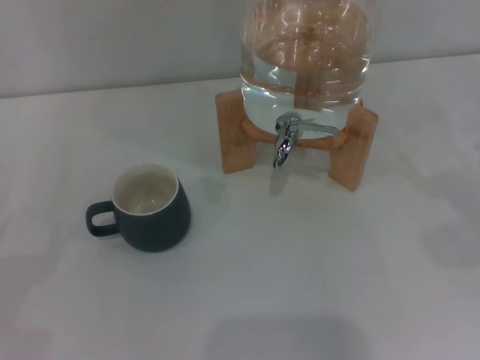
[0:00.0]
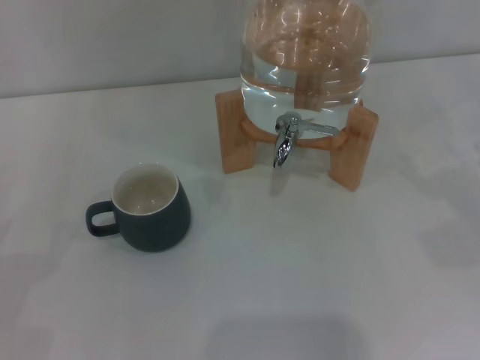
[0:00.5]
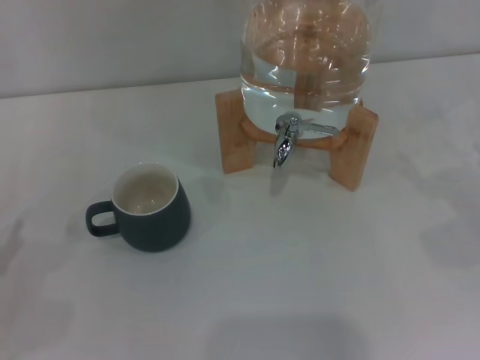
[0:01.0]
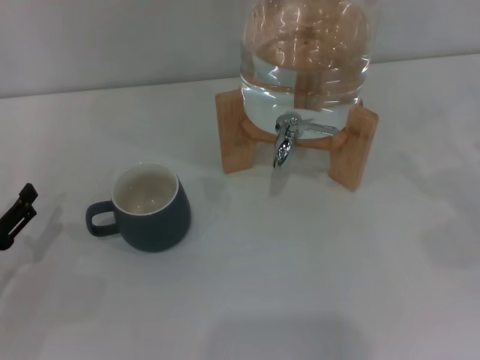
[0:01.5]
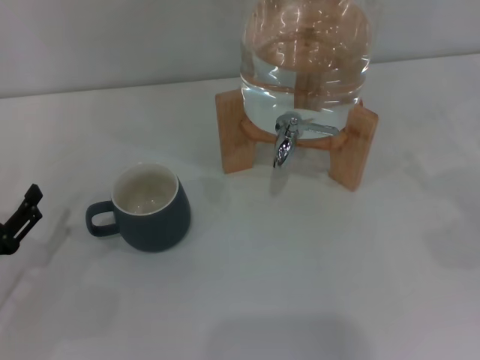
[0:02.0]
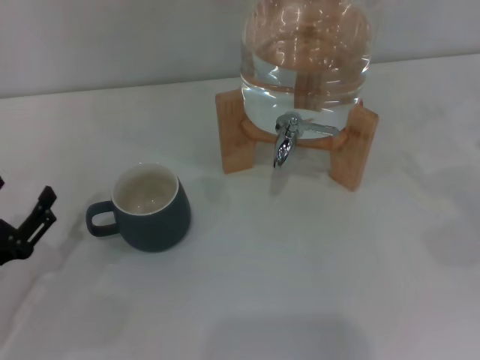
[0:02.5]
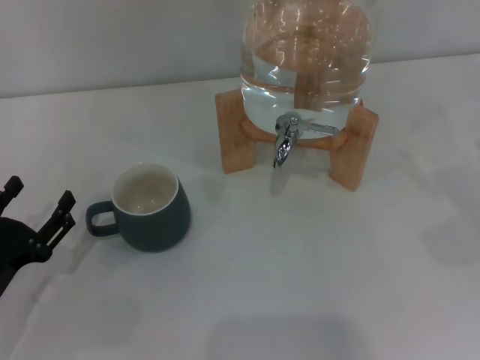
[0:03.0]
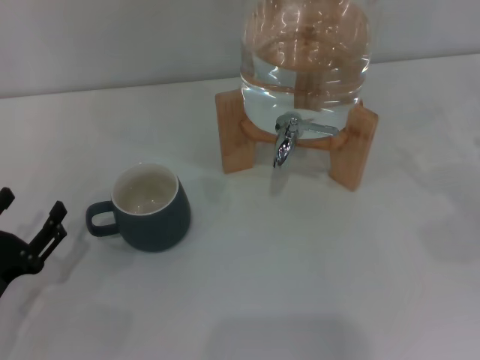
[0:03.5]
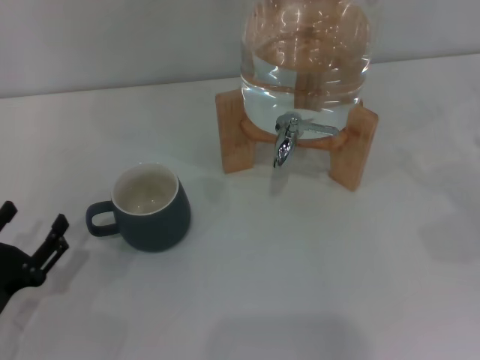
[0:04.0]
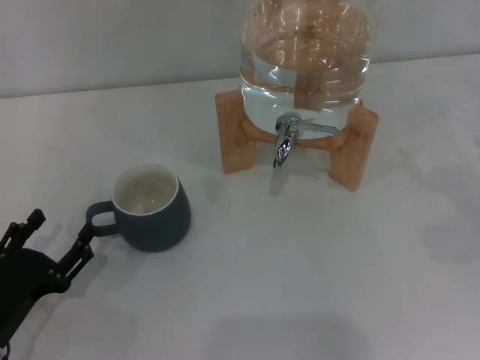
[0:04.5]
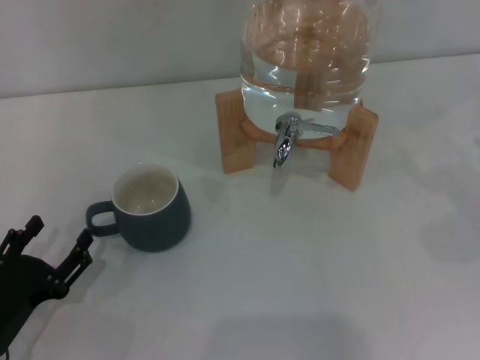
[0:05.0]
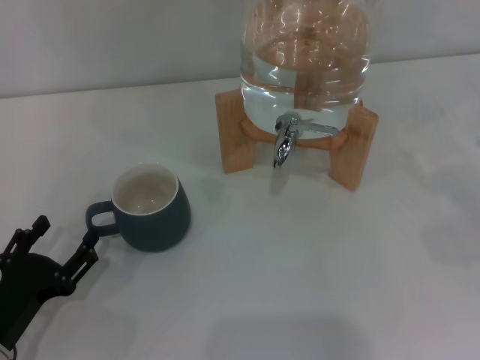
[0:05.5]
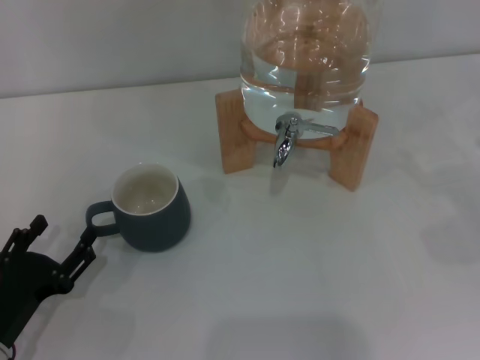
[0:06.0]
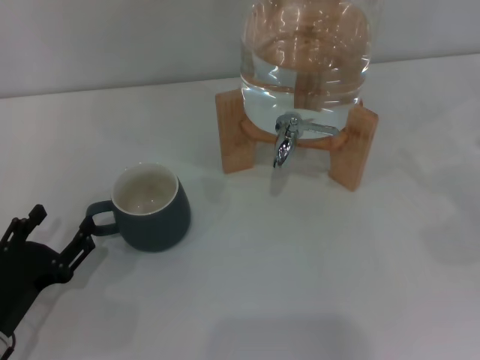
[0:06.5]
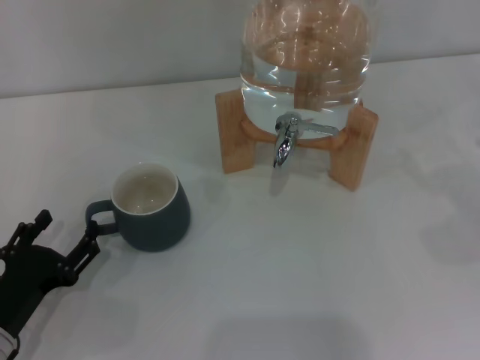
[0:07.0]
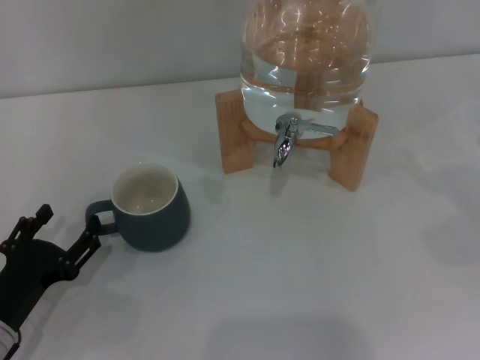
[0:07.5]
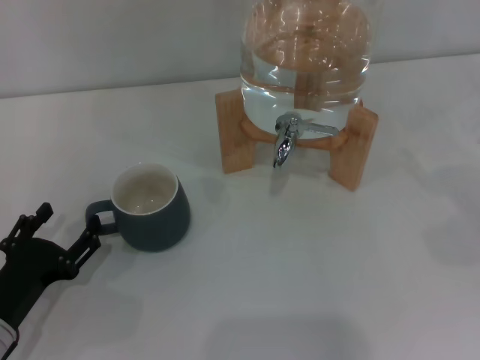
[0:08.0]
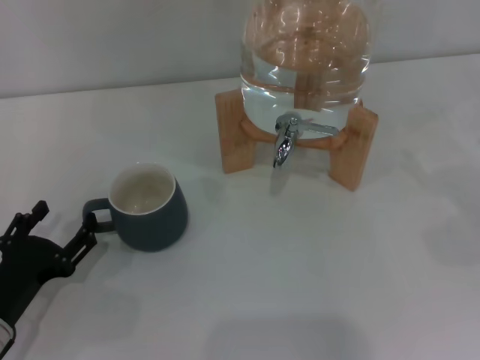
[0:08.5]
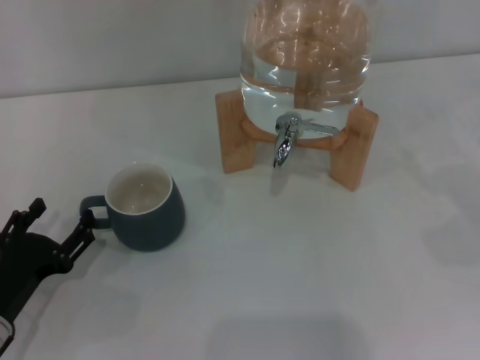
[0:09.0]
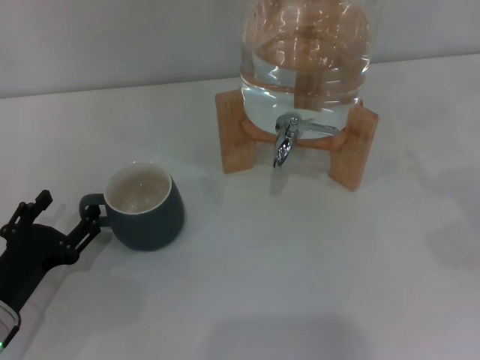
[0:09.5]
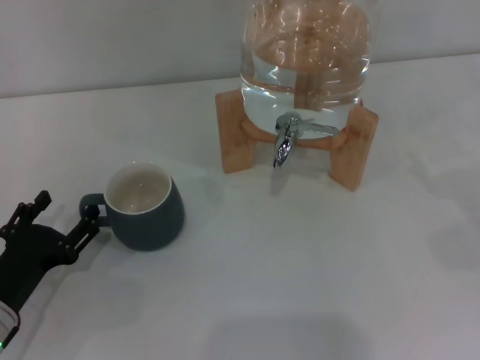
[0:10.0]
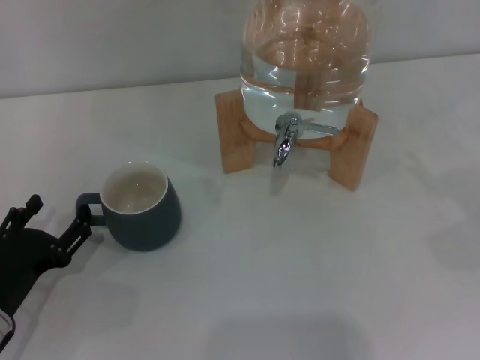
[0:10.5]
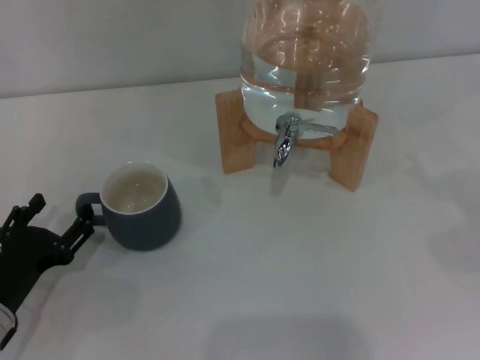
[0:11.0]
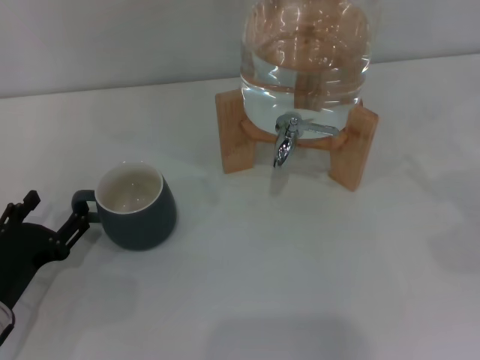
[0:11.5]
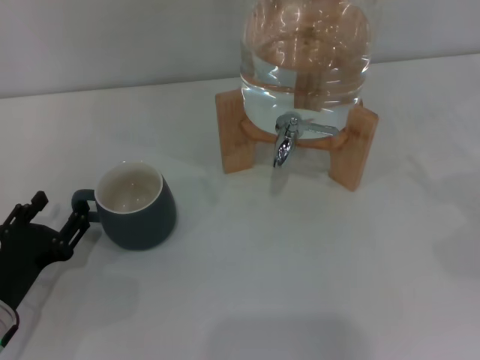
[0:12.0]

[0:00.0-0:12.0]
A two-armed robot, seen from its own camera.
Task of the whole recording: the left gripper pick up the black cup and place it horizontally under the faucet, the right gripper turn on the faucet to fill the cup, and then turn off the faucet.
0:00.0 to 0:02.0: The left gripper travels to the right by some 5 cm.
0:02.0 to 0:10.0: There are only small adjustments of the grippers.
0:10.0 to 0:12.0: Neither gripper changes place.

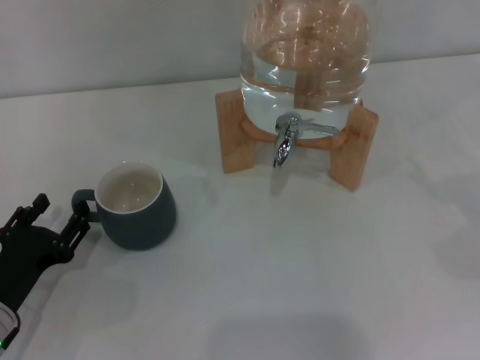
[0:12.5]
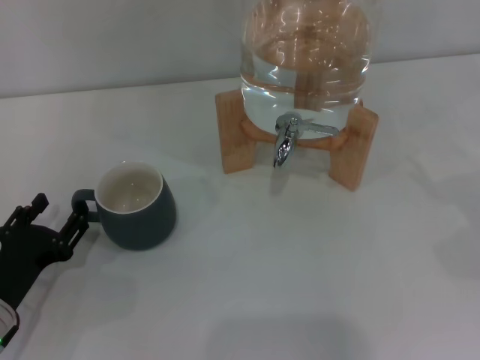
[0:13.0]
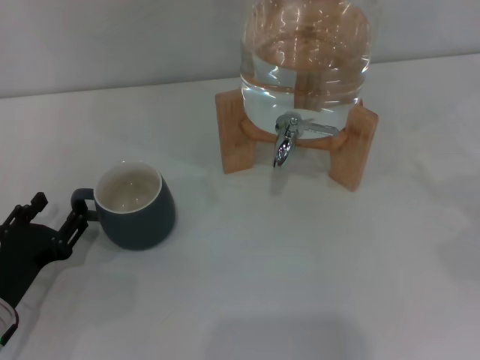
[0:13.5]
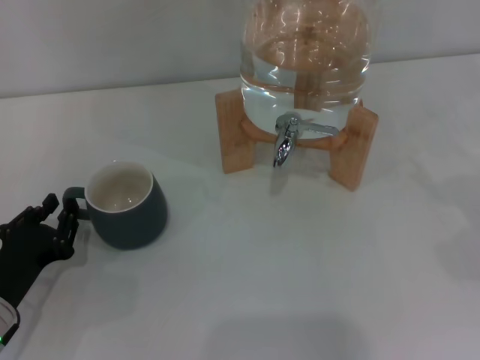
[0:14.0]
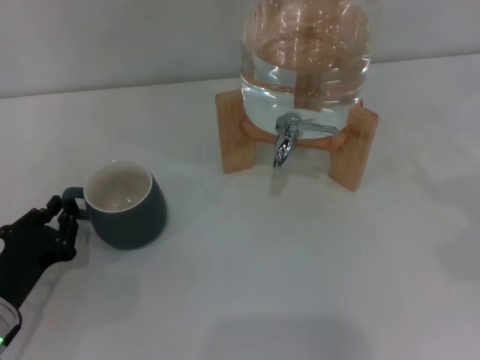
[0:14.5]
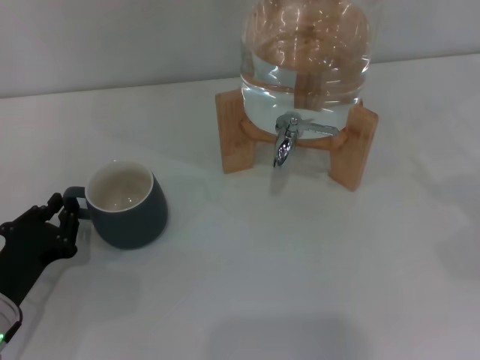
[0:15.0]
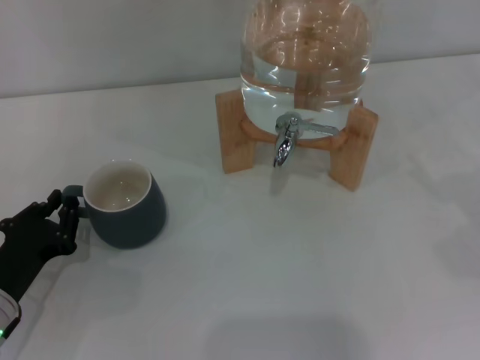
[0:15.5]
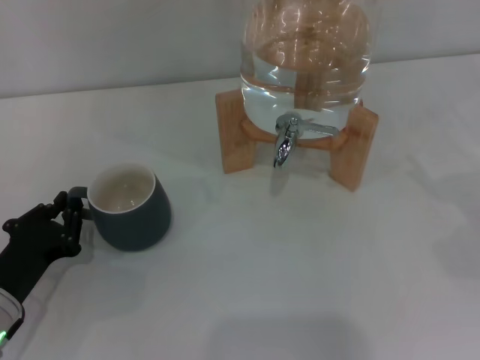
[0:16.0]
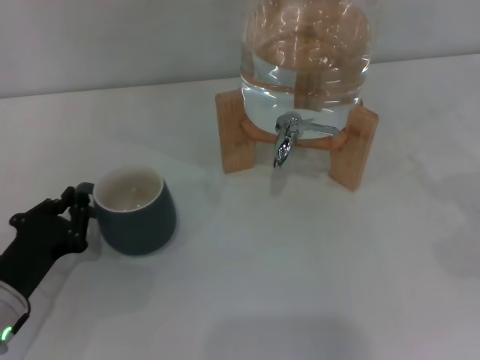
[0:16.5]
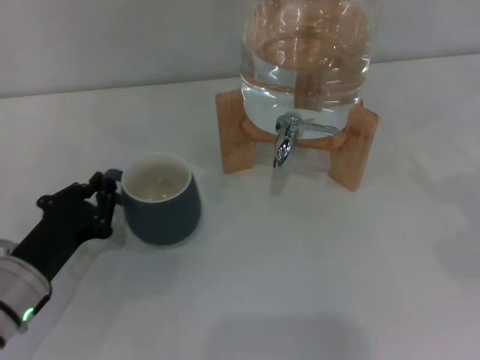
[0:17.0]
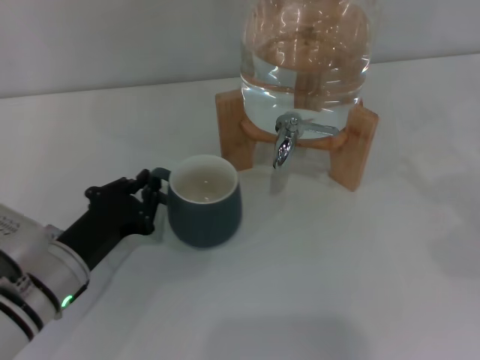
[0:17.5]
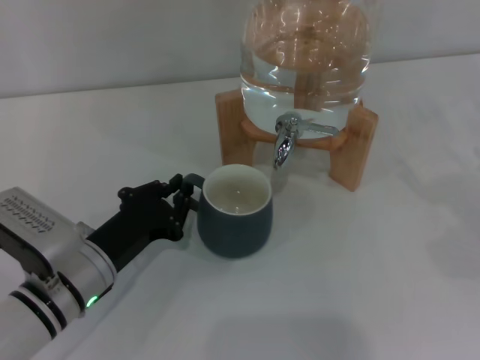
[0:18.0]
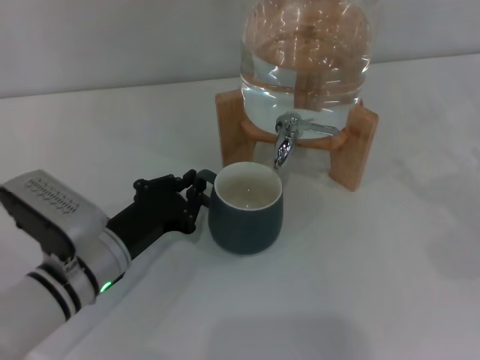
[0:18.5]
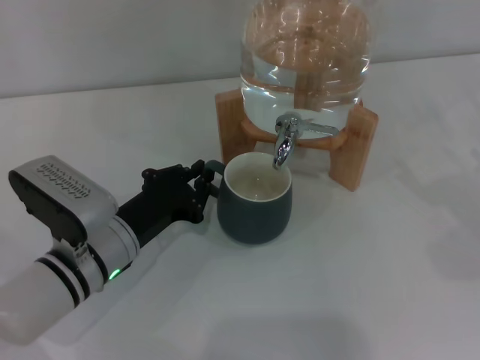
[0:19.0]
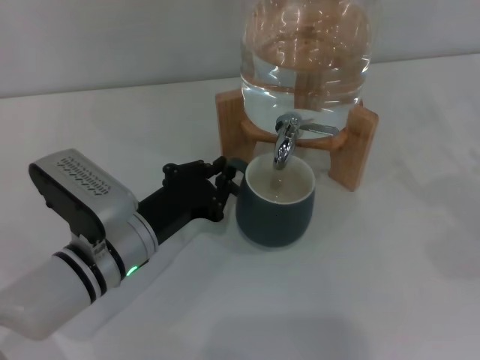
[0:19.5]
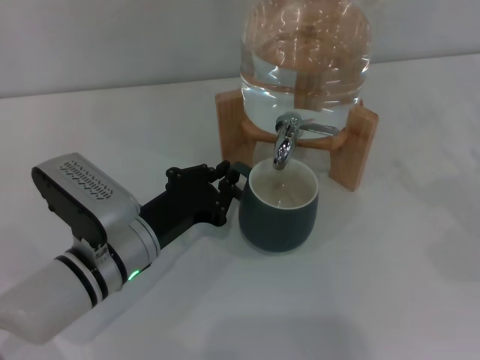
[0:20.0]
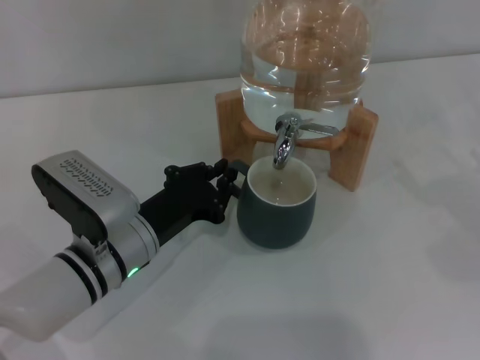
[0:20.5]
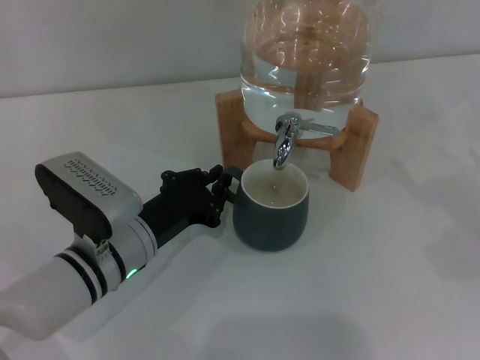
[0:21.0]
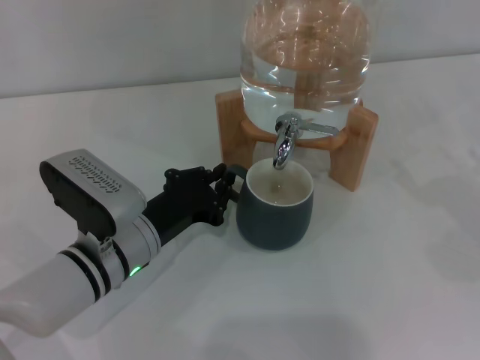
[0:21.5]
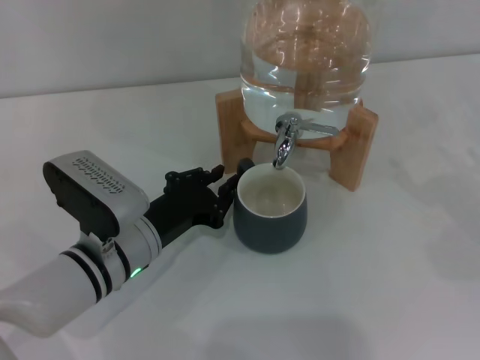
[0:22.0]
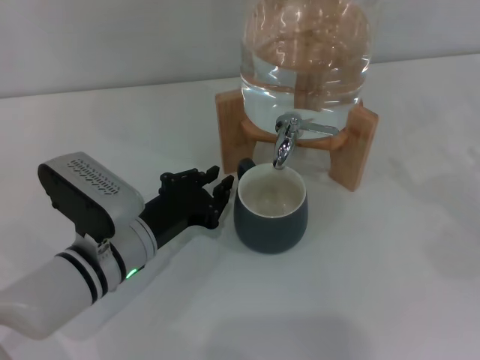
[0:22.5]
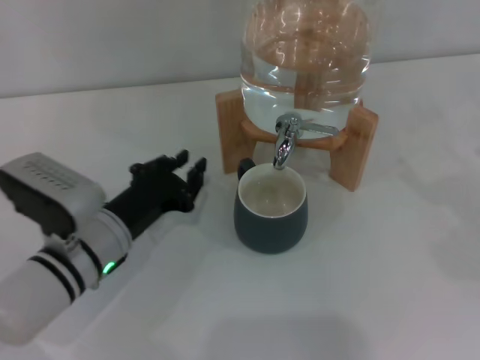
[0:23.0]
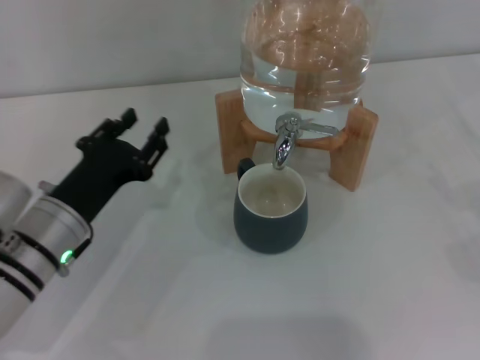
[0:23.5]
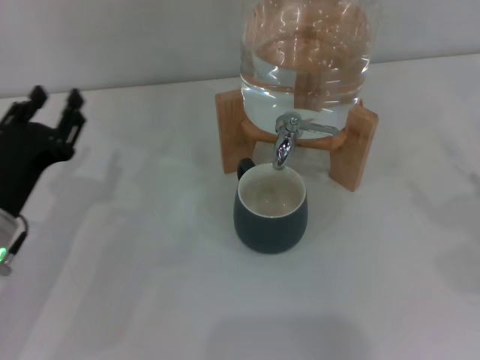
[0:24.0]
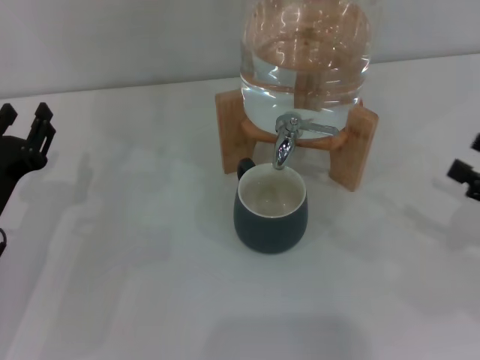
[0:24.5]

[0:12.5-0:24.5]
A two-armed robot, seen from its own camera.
Task of the whole recording: the left gripper pick up the black cup and place it horizontally under the faucet, the right gripper turn on the faucet to fill the cup, and then turn off the faucet.
Step, 0:12.5 to 0:23.0: Move the cup beneath the water dispenser nozzle with the left gripper.
0:12.5 to 0:14.5: The left gripper closes its fingers.
0:14.5 to 0:16.5: The two grippers keep their place.
0:16.5 to 0:18.5: The left gripper travels to the right by about 10 cm.
0:18.5 to 0:20.5: The grippers stay close to where they were, moving slightly.
0:20.5 to 0:22.5: Both grippers stay about where they are.
0:22.5 to 0:24.5: The left gripper is displaced to the left by approximately 10 cm, and opens. Meanwhile the right gripper ends up about 5 cm from where it was.

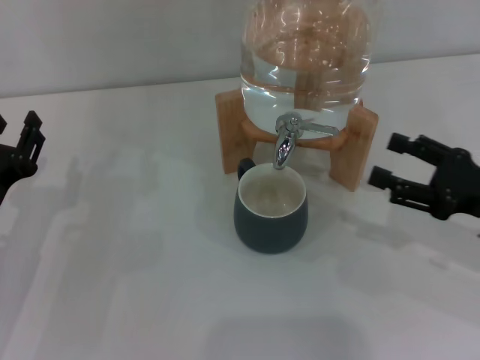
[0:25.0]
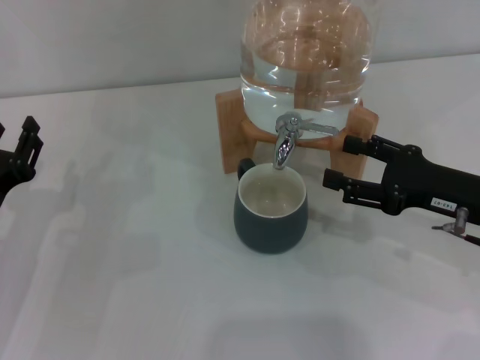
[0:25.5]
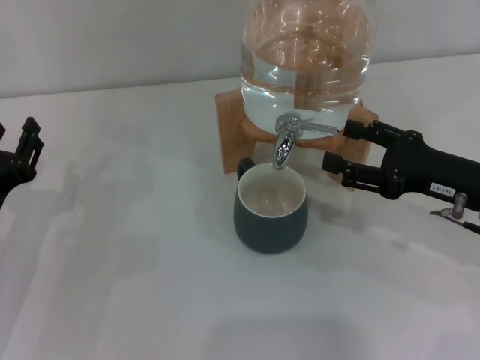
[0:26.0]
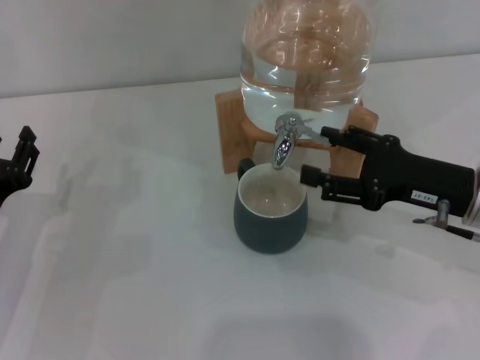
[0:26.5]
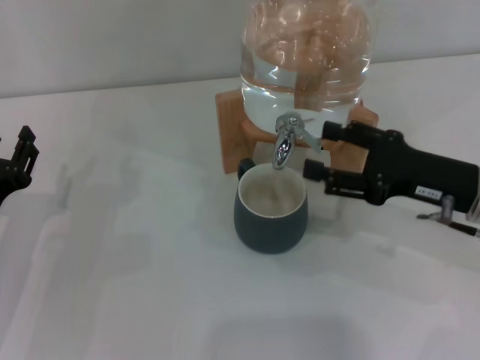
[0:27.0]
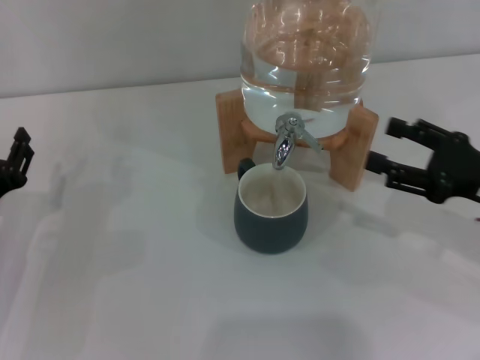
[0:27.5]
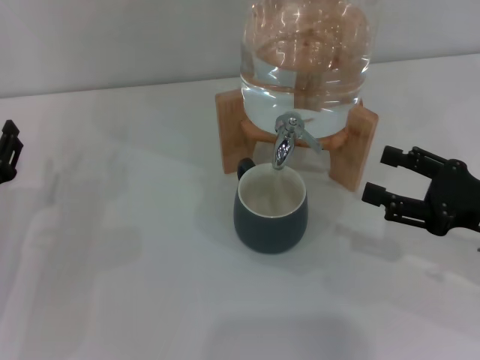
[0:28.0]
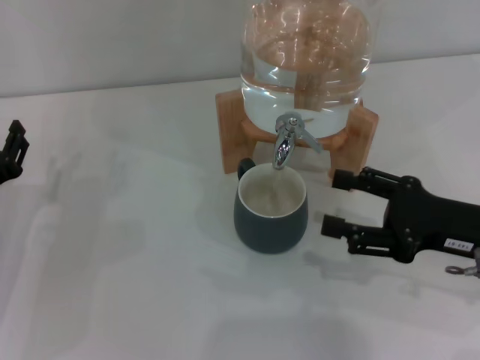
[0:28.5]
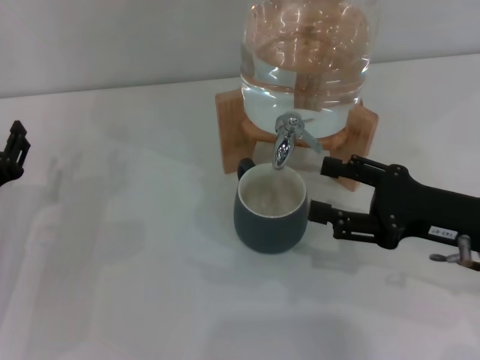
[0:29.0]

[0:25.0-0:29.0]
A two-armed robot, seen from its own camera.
Task of the whole recording: the left gripper pick up the black cup and place it horizontally under the faucet, the right gripper turn on the faucet to fill the cup, and then turn off the faucet.
0:25.0 to 0:27.0: The right gripper heads to the left, covering approximately 5 cm.
